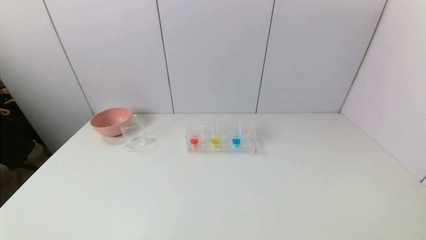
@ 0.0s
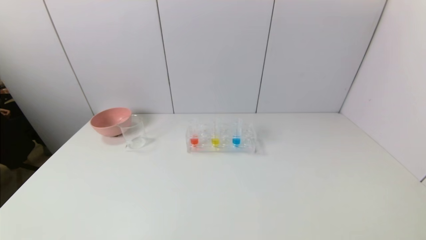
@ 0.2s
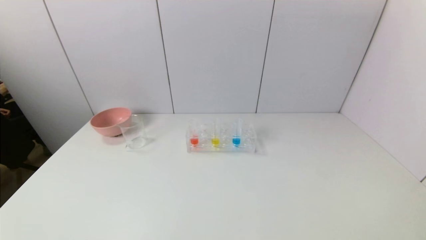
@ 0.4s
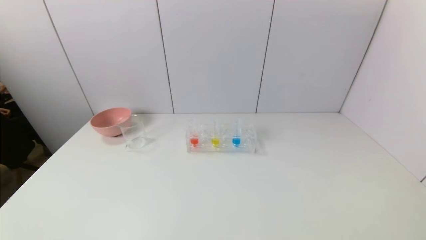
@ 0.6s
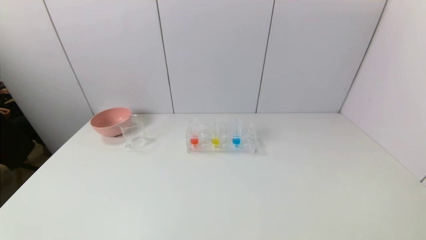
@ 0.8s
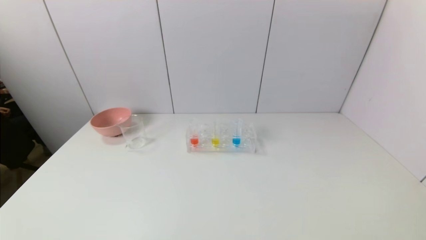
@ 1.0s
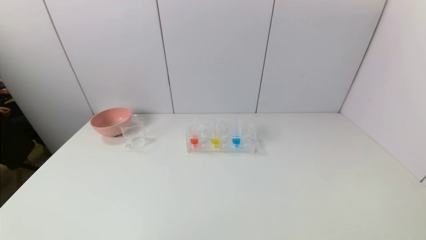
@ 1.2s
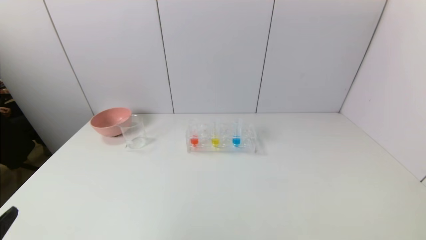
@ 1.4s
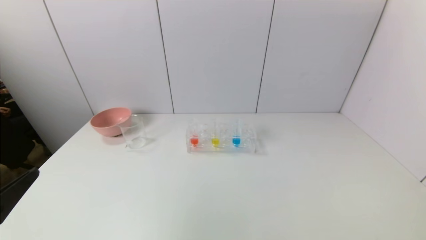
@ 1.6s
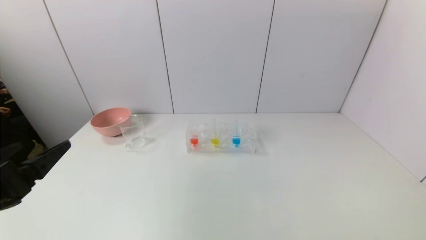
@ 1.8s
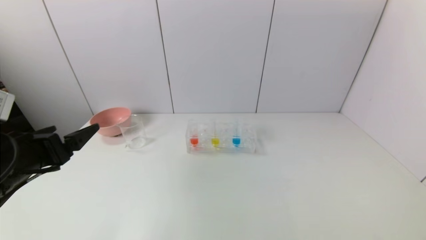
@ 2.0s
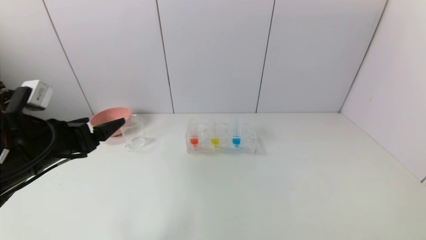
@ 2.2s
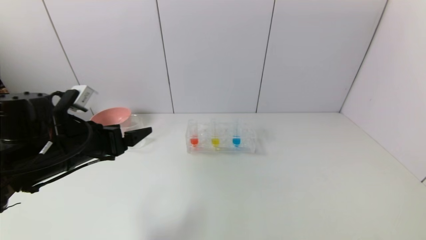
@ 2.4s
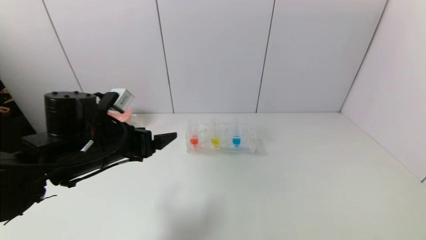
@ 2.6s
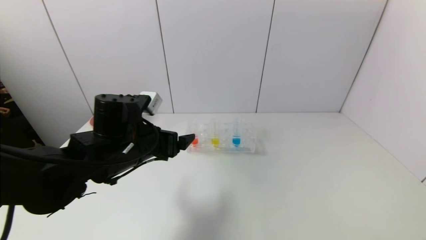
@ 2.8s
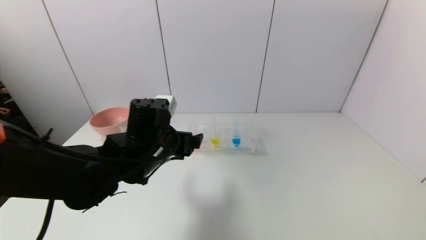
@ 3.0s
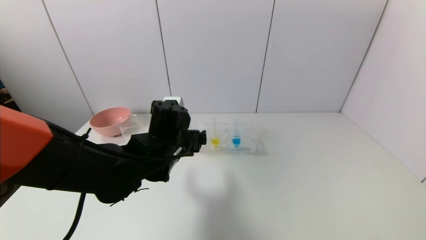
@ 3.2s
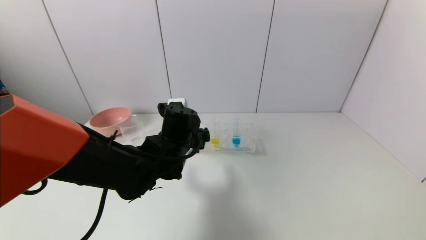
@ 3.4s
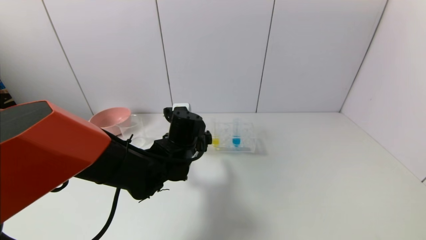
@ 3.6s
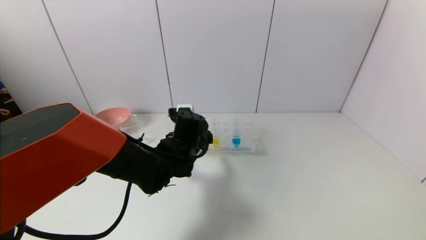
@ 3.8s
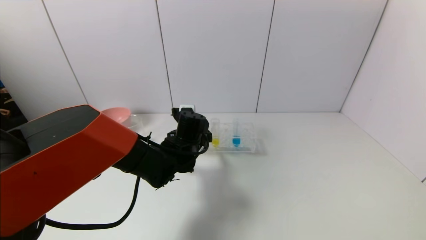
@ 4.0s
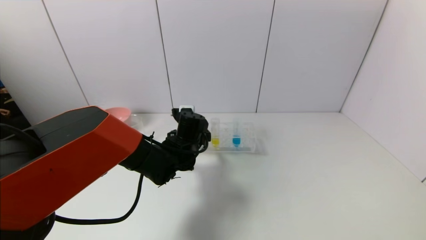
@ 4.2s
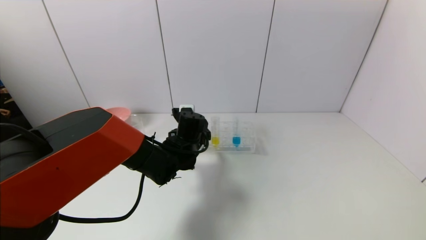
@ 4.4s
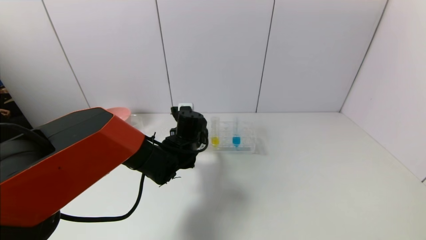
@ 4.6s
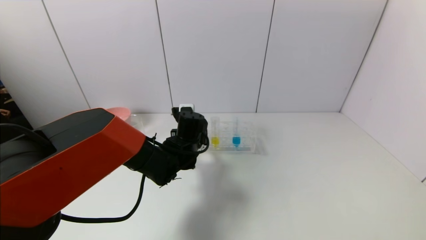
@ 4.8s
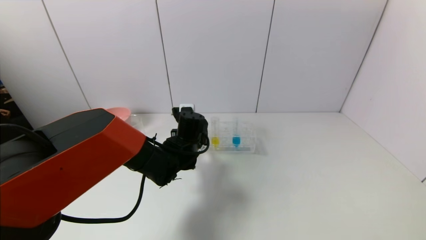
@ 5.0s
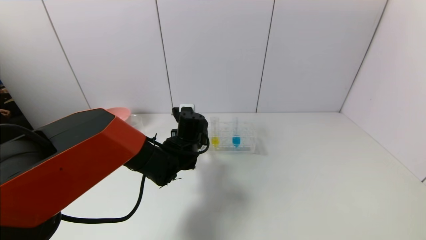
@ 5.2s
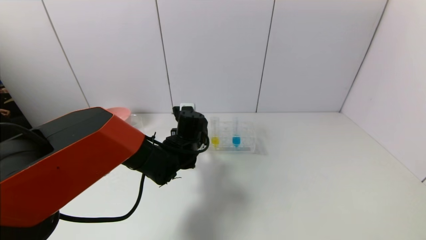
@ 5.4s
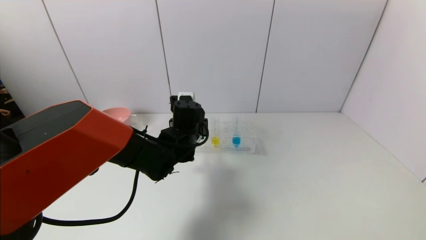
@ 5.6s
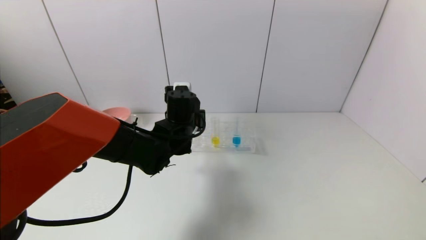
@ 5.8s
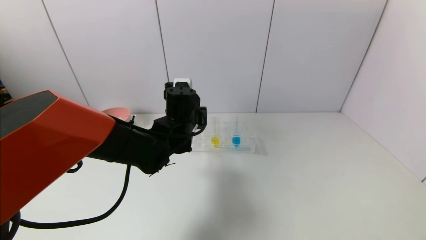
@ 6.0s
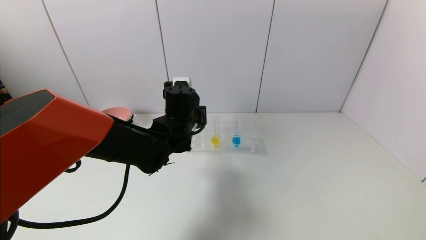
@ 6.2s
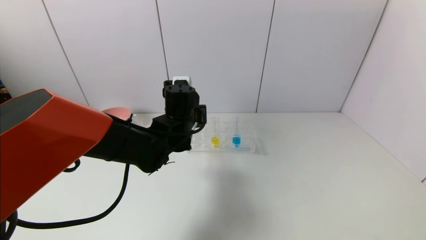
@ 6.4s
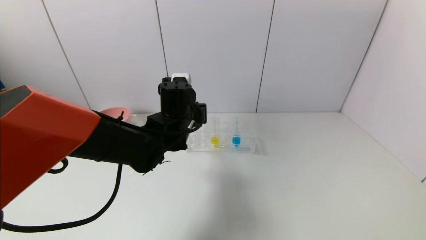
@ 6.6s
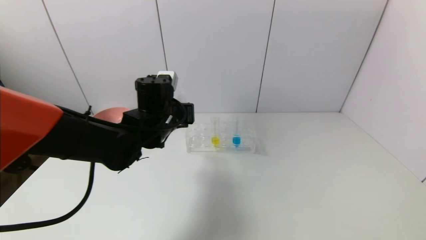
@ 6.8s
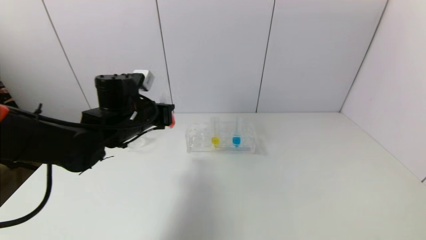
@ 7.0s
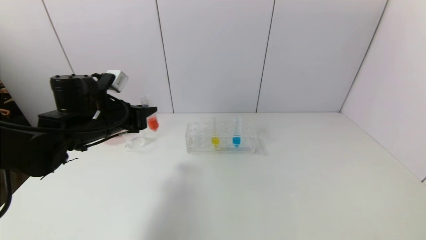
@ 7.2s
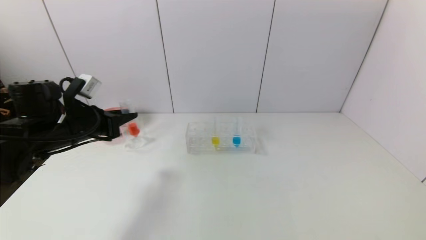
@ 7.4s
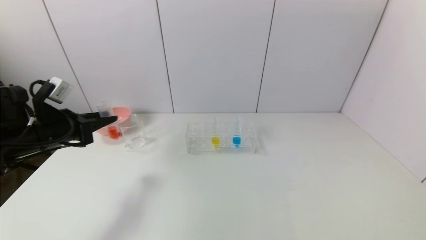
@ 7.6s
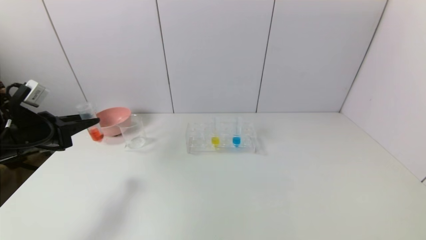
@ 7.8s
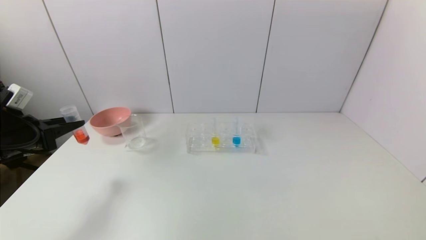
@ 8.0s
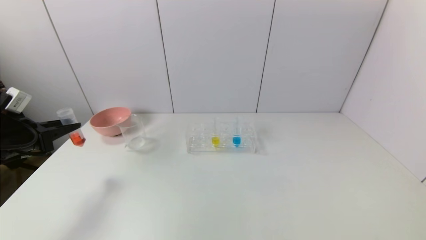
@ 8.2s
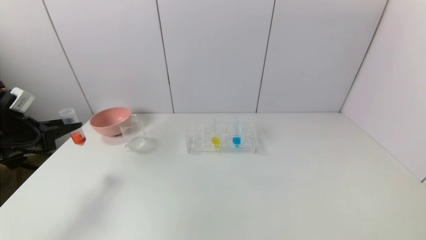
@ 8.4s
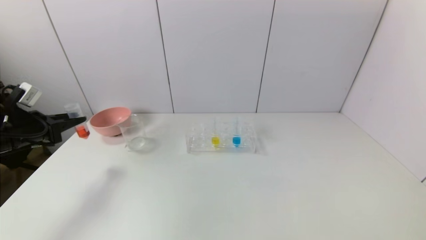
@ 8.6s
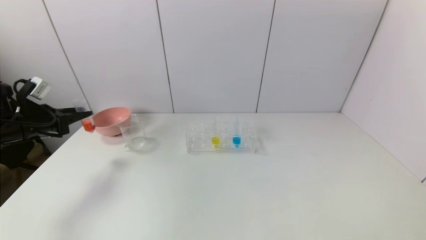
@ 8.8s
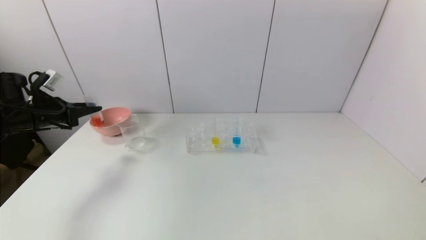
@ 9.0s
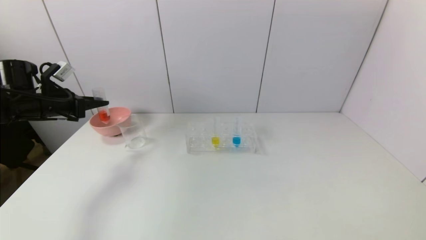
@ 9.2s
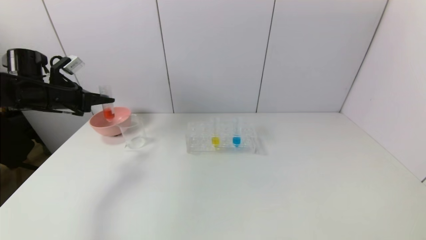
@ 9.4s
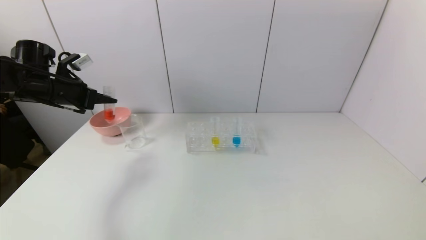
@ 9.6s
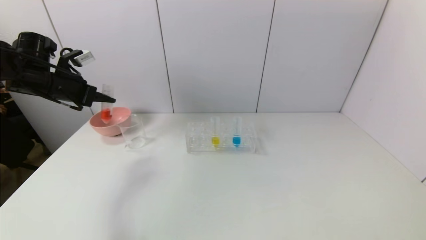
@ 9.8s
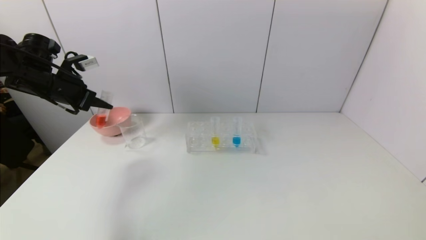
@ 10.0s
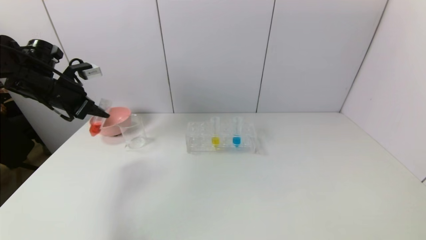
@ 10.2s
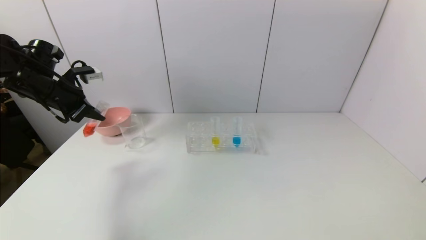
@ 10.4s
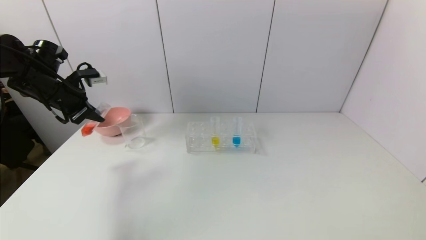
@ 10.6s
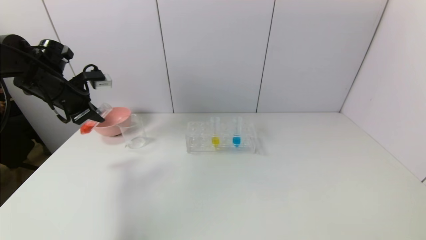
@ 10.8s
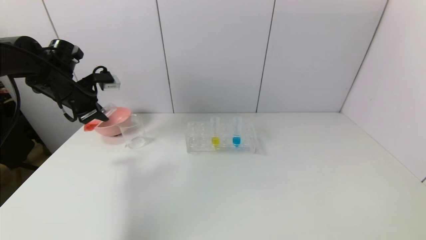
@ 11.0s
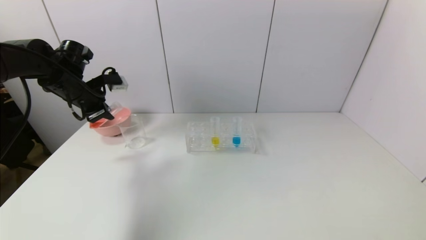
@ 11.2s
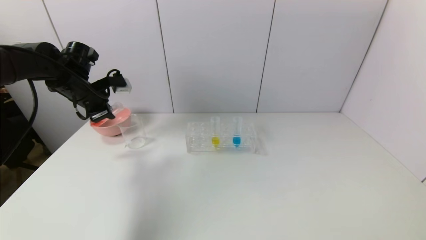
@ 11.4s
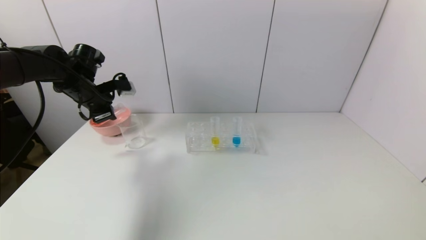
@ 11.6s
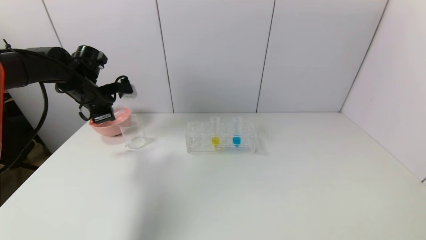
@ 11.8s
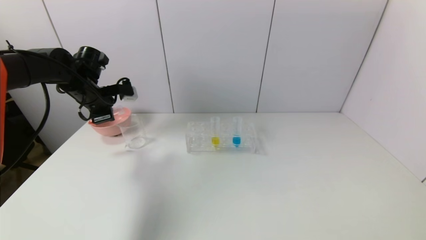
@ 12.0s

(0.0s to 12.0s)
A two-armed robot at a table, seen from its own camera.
Task of the whole recording: pick up the test tube with red pigment and the test tube with blue pigment by grippers and pour them into the container.
Step, 0.0s - 5.4s: Grasp the red reagent with the left gripper.
0.0s - 1.6s: The left gripper is displaced upward and forward by some 15 cm.
1.6s - 3.0s: The left gripper heads forward and to the right, covering about 30 cm.
3.0s - 4.4s: The left gripper heads forward and downward, covering approximately 10 cm.
4.4s - 6.0s: The left gripper goes some 5 cm upward, and closes up.
6.0s - 7.6s: The left gripper travels to the left by about 25 cm.
7.6s - 9.0s: The left gripper shifts approximately 10 cm forward and to the left.
9.0s - 10.4s: The left gripper moves upward and to the right, about 10 cm.
10.4s - 12.0s: The left gripper heads to the right, covering about 5 cm.

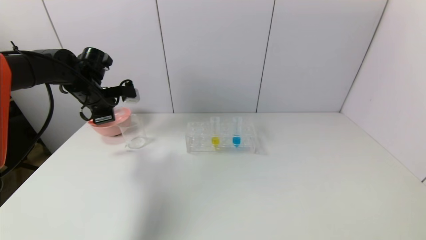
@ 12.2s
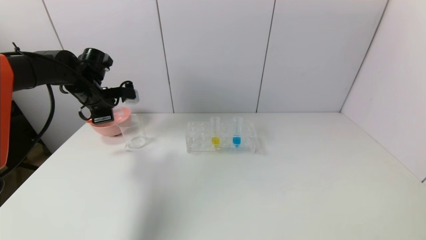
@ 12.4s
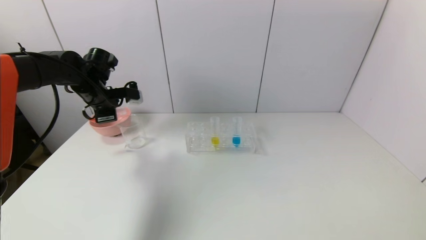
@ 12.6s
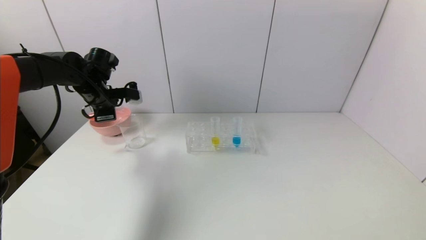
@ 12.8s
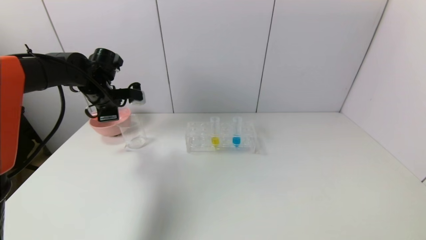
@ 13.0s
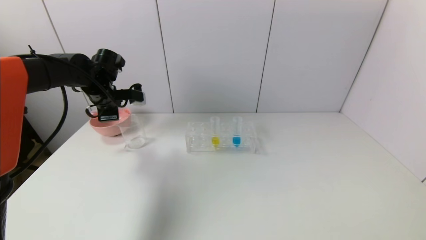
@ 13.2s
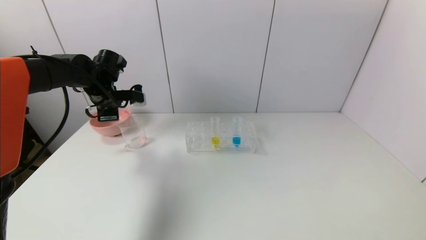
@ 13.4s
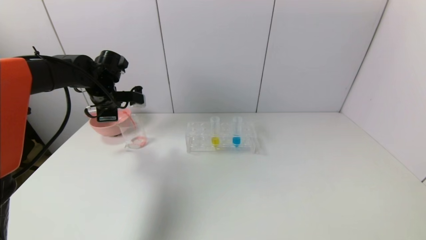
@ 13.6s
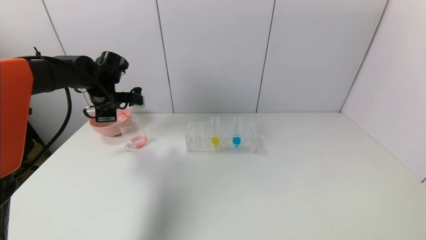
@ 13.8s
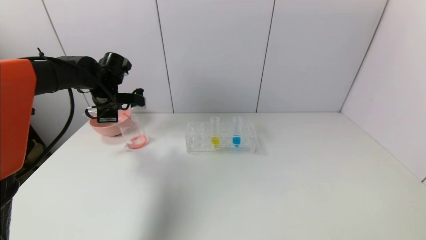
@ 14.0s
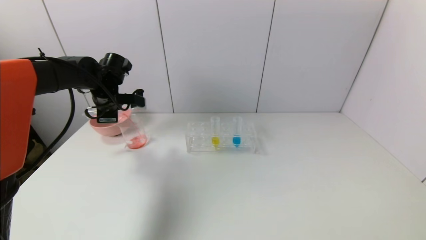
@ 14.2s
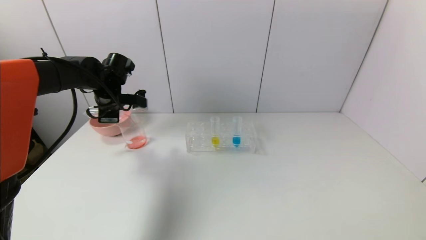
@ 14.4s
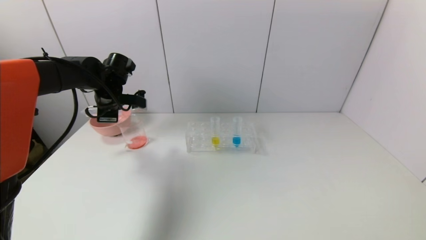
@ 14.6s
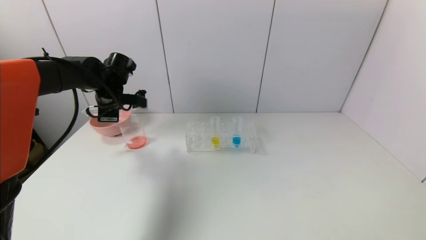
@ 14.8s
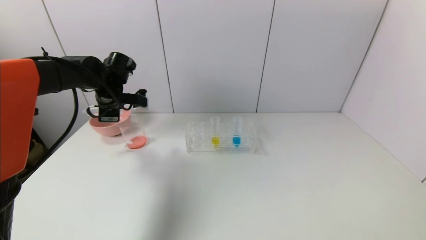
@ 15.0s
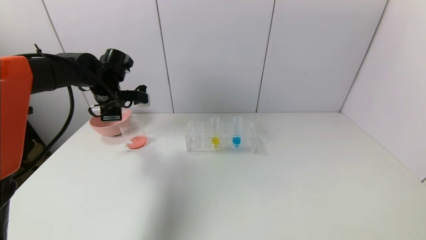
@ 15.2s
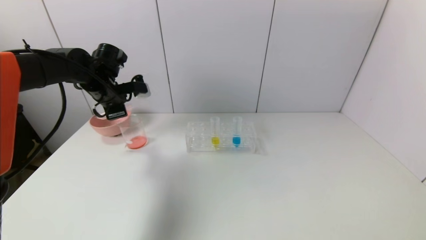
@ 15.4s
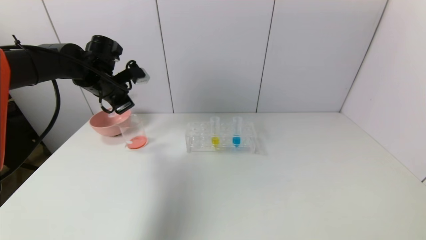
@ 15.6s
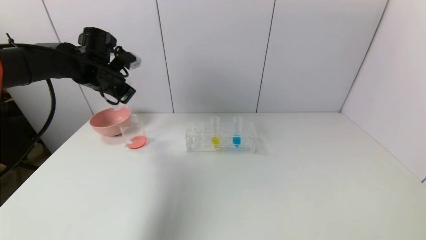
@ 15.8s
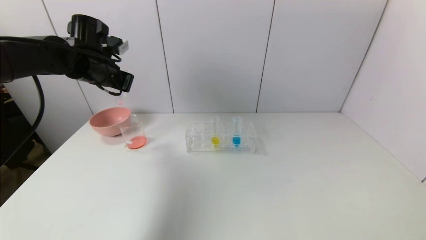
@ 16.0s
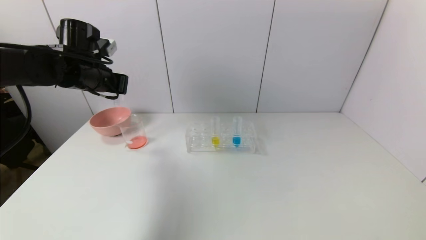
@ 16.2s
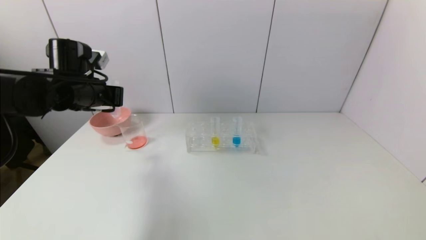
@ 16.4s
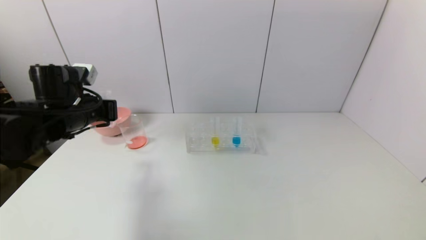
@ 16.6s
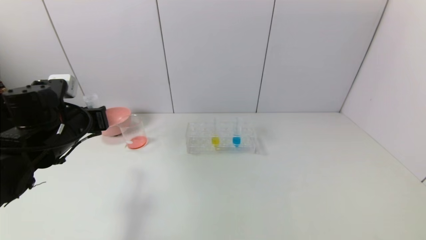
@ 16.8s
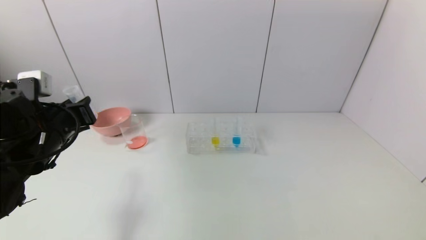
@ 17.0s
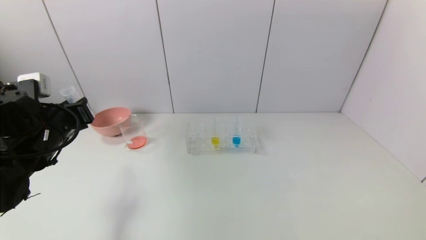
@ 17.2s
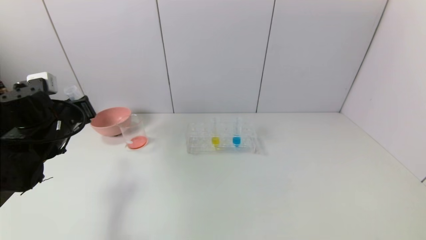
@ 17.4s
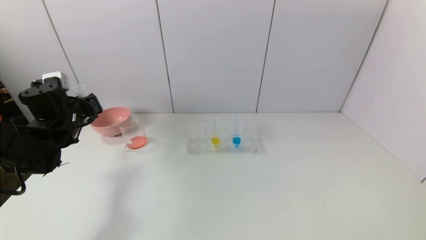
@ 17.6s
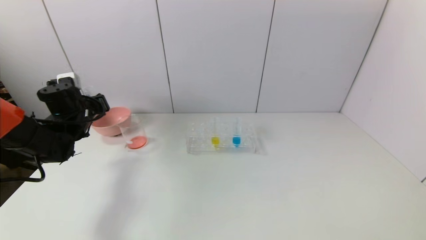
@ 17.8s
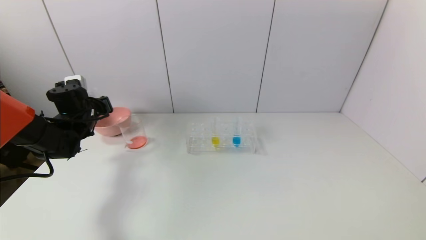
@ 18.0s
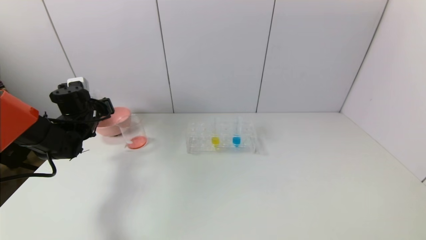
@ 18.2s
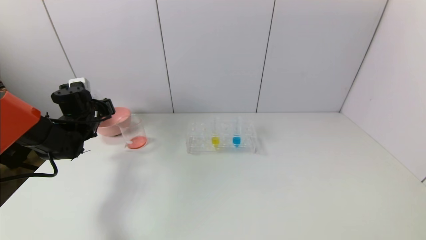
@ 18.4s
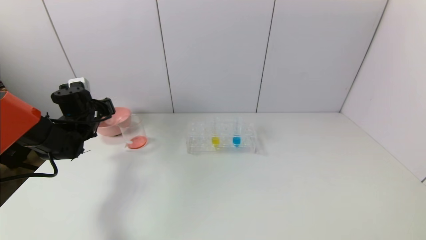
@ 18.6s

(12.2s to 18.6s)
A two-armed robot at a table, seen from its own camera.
Task of the whole recording: pick up the test tube with red pigment and the test tube with blue pigment by grippers and pour them into the container.
Step, 12.2s - 15.2s: Pour the red reagent into the graduated cylinder with the left gripper.
Step, 15.4s - 18.6s: Place the test tube into the bowl with the left gripper.
12.2s - 13.8s: There are only small adjustments of the grippers.
15.4s - 17.0s: The left gripper is displaced backward by some 15 cm.
17.0s - 18.6s: The left gripper moves forward, about 15 cm.
